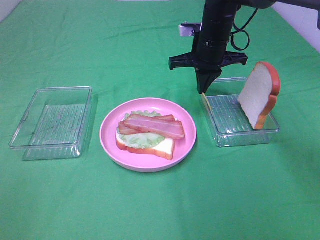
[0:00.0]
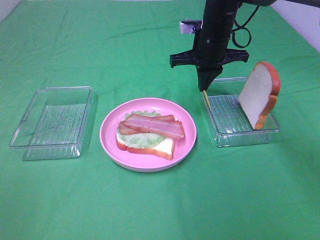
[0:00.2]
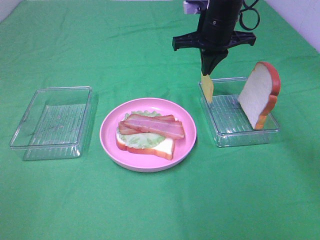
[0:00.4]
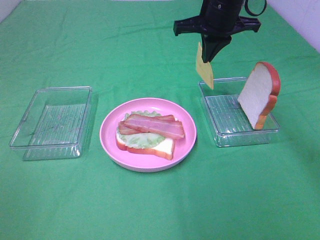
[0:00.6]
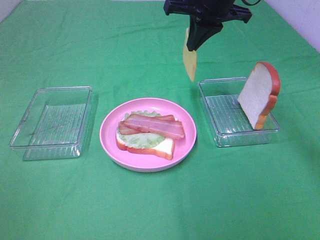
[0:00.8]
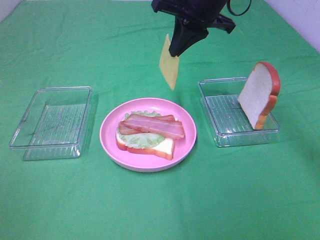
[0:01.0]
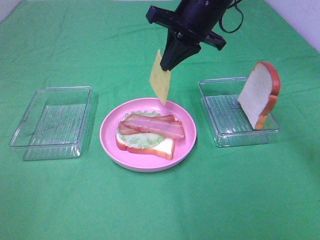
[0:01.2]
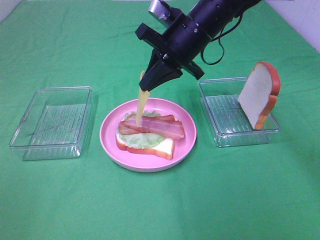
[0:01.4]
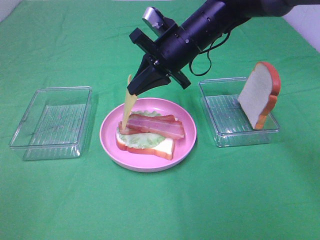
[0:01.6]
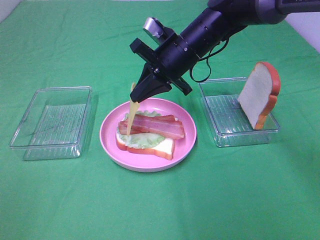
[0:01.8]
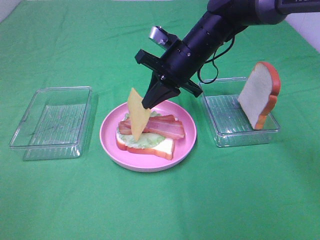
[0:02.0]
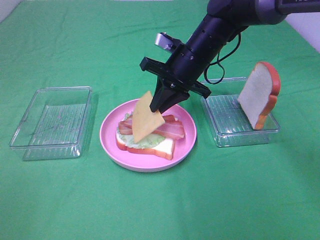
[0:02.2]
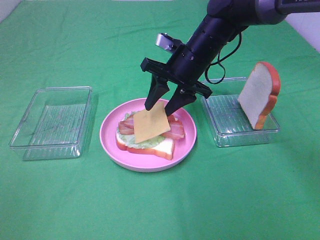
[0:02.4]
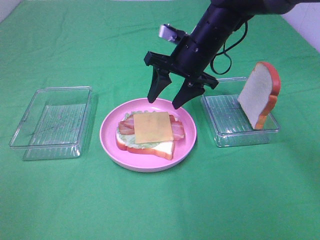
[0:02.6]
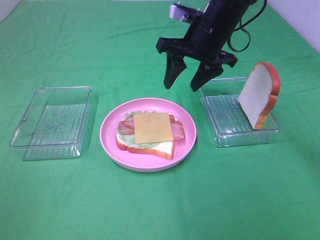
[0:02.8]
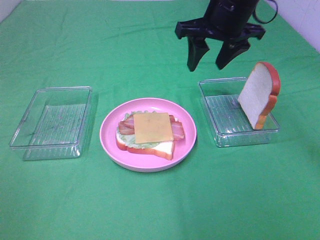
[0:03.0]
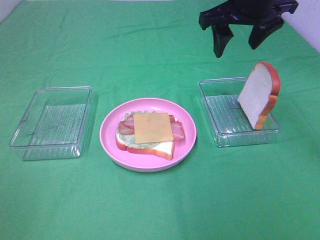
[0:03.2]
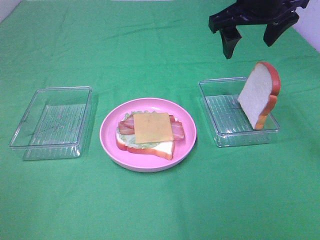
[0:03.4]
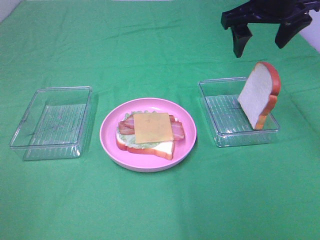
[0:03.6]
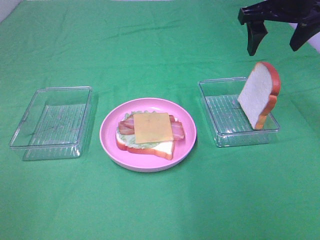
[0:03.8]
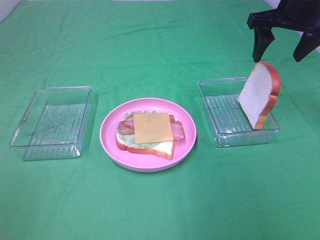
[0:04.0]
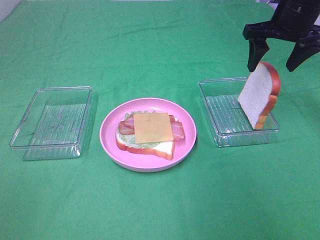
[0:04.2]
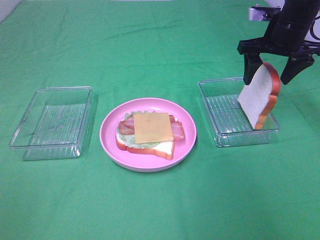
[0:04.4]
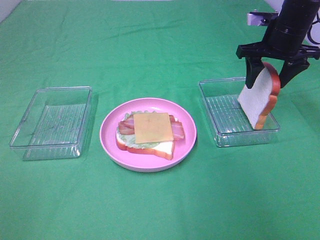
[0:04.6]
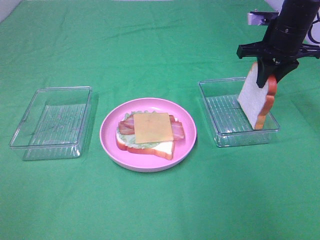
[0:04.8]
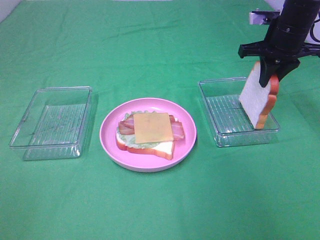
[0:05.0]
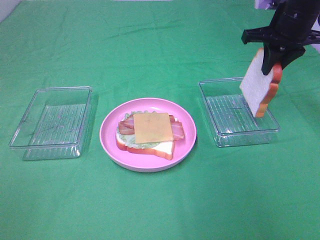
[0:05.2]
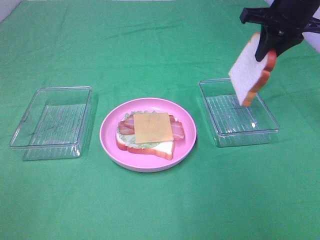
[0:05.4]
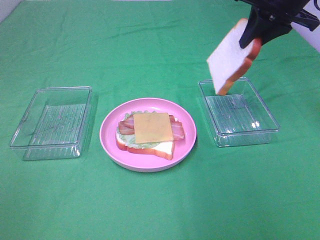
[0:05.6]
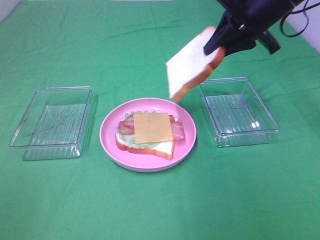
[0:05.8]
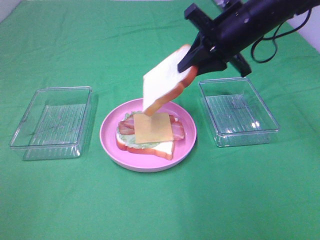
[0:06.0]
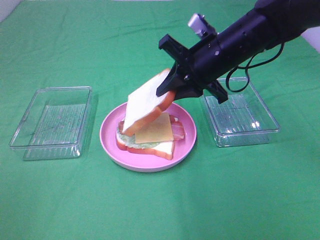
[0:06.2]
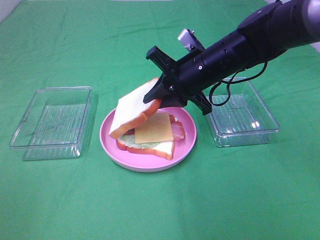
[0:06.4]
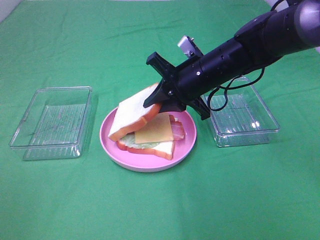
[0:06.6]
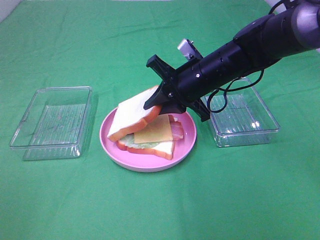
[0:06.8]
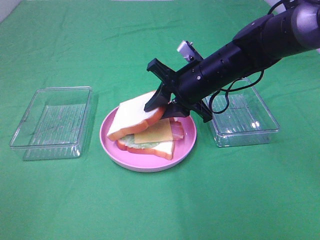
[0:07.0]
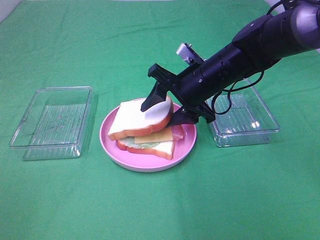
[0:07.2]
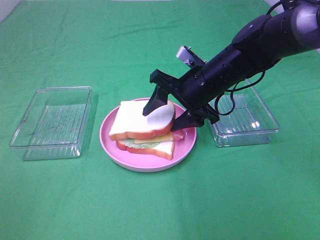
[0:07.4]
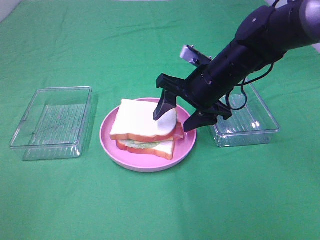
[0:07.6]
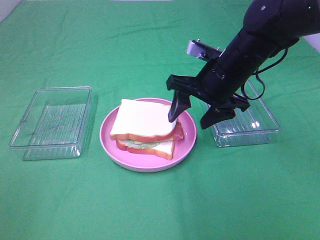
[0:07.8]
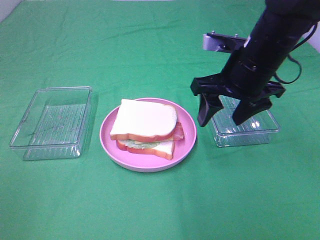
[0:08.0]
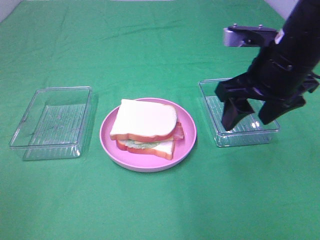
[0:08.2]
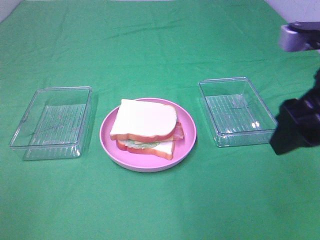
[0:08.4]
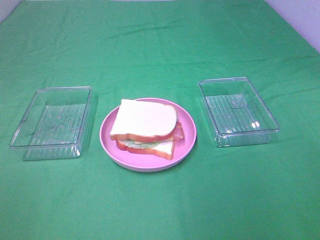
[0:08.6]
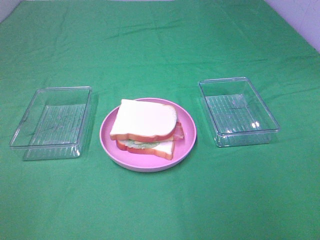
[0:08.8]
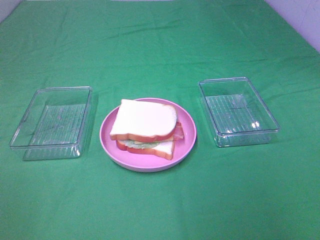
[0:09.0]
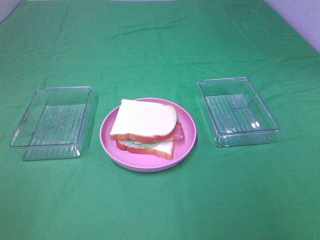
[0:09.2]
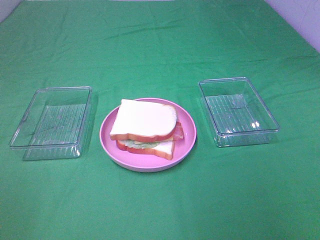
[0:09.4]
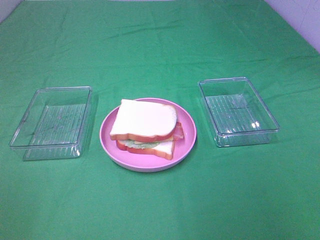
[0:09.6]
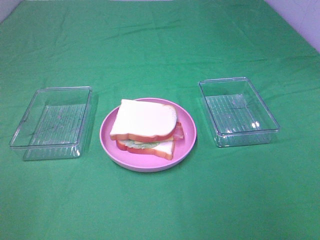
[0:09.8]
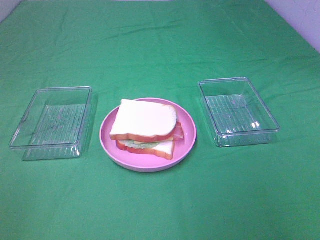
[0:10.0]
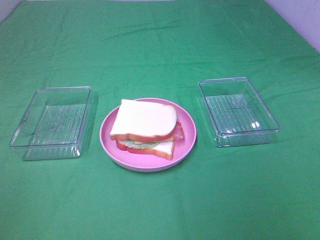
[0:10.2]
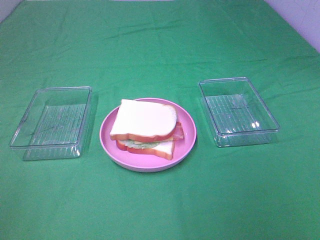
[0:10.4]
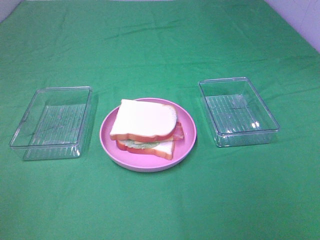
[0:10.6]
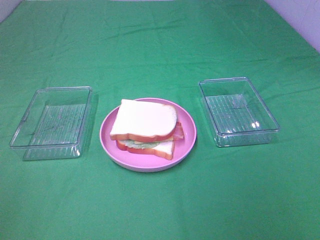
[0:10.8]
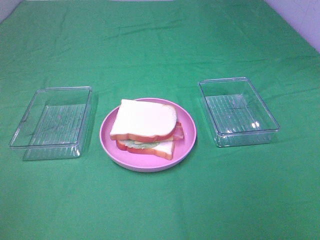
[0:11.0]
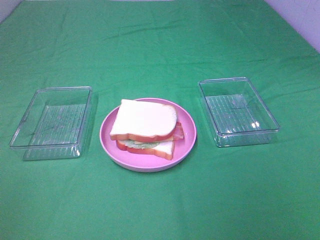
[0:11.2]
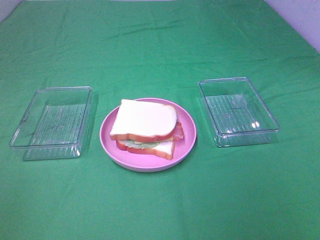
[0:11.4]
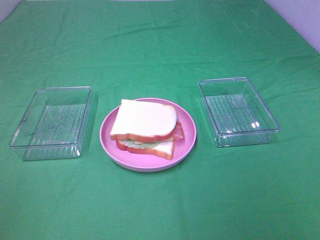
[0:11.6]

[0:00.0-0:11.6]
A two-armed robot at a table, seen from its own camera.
Task of the whole recording: Make sandwiches.
Step, 0:00.4 to 0:02.8: Right hand:place the cheese slice on top of the bacon.
Step, 0:03.0 to 0:05.0: Right hand:grab the bread slice.
Step, 0:05.2 to 0:07.6: Right hand:place the bread slice on the cheese slice.
0:00.0 to 0:01.4: The right gripper shifts about 5 cm backward, and travels upward and back again, approximately 10 cm each way.
0:01.4 to 0:02.8: The right gripper opens its fingers.
0:02.8 to 0:04.4: The right gripper is displaced to the right by some 15 cm.
0:04.4 to 0:05.8: The right gripper shifts some 5 cm to the left, and closes up.
0:05.8 to 0:07.2: The right gripper moves downward and to the left, about 15 cm, and opens.
0:07.2 to 0:08.8: The right gripper shifts approximately 35 cm backward, to the right and upward.

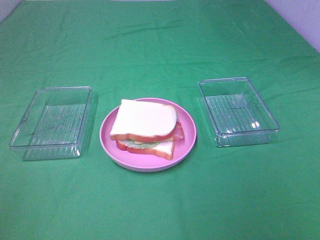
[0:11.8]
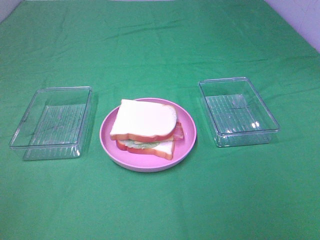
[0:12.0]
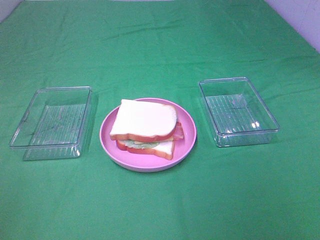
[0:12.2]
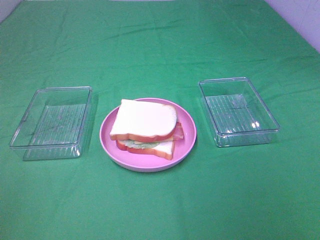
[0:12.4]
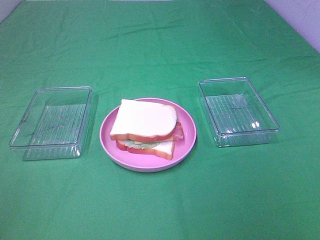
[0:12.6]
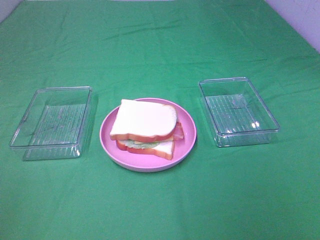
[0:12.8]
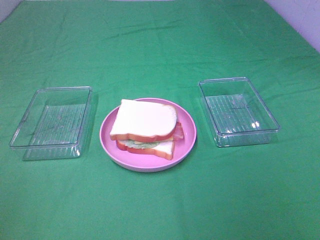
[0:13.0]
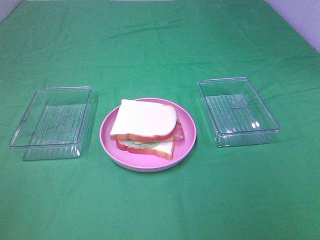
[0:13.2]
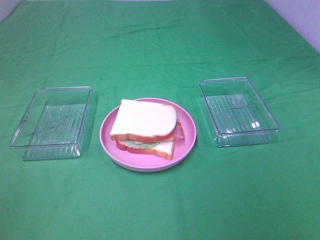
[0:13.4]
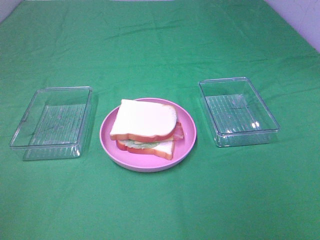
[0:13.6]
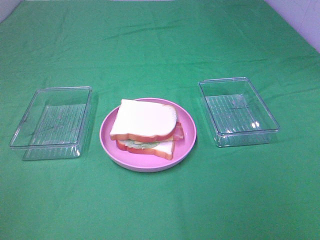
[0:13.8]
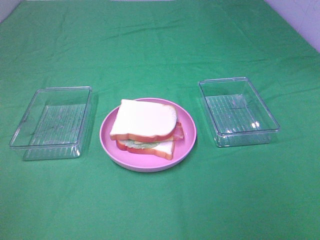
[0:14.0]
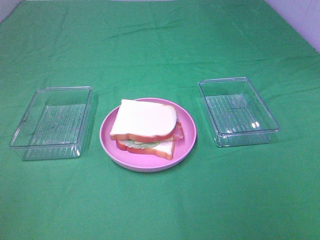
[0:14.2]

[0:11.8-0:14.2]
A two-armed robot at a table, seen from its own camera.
Task of the whole recording: Make sandwiches.
0:11.8 to 0:14.2: The two grippers keep their place.

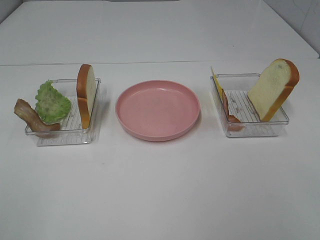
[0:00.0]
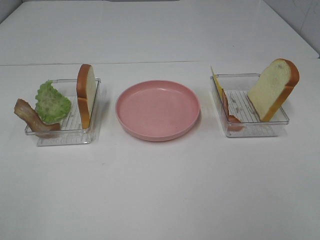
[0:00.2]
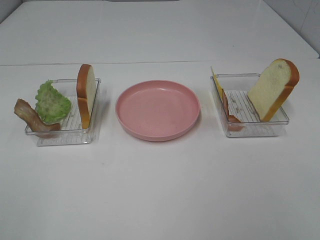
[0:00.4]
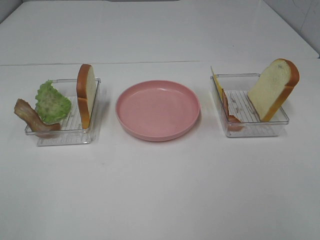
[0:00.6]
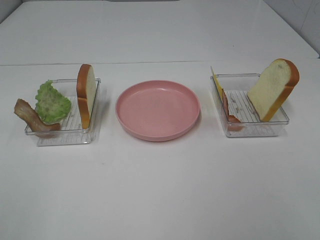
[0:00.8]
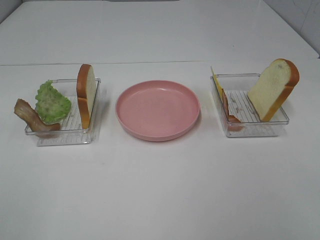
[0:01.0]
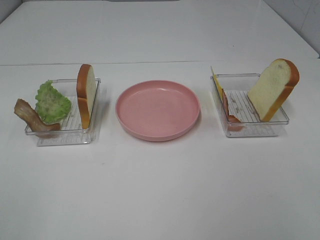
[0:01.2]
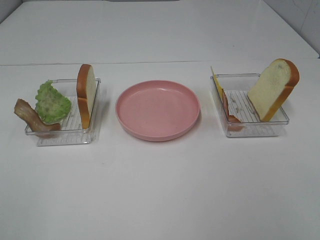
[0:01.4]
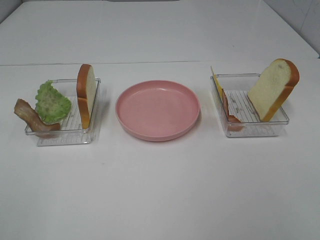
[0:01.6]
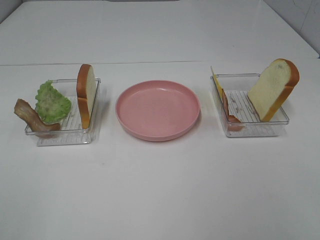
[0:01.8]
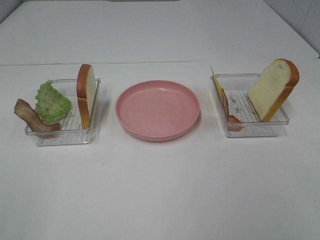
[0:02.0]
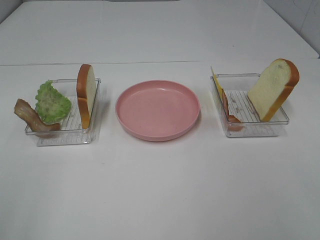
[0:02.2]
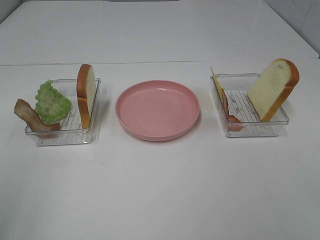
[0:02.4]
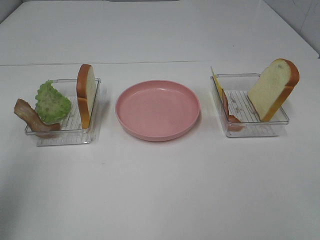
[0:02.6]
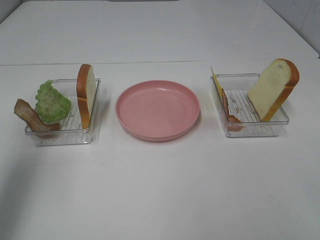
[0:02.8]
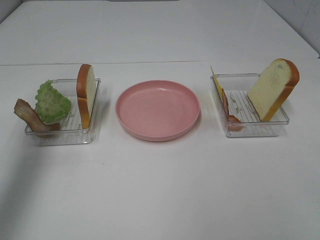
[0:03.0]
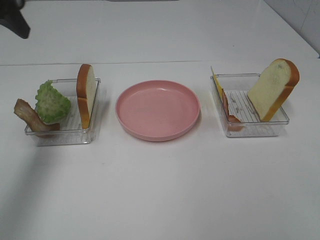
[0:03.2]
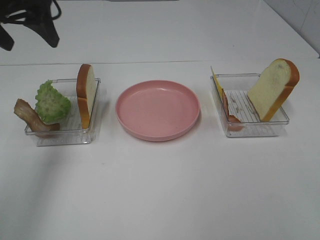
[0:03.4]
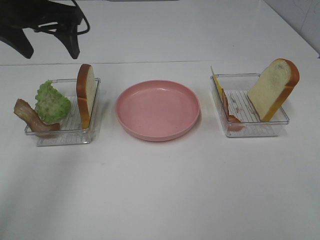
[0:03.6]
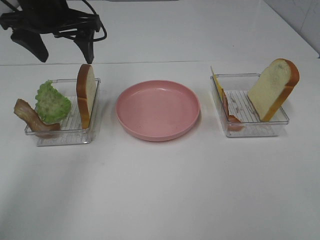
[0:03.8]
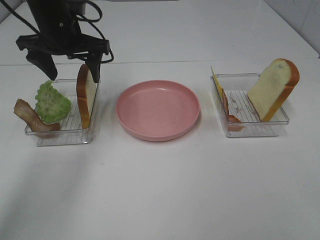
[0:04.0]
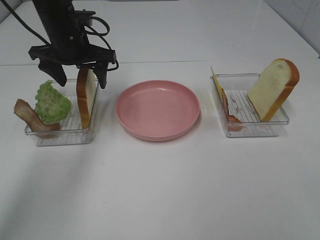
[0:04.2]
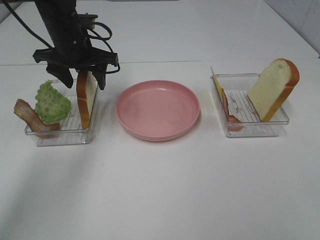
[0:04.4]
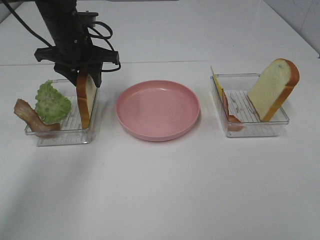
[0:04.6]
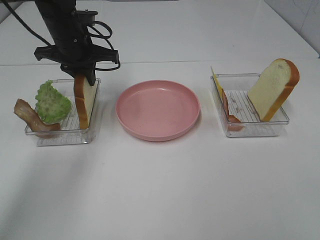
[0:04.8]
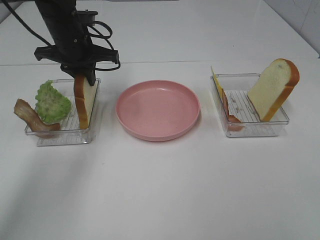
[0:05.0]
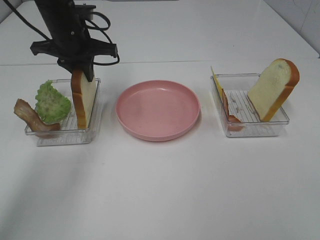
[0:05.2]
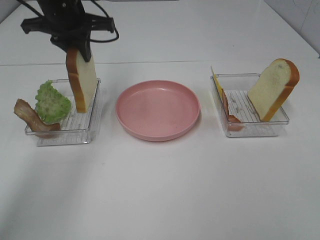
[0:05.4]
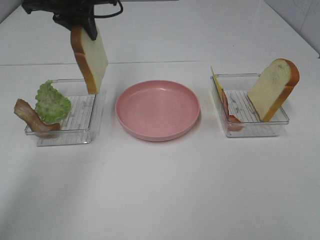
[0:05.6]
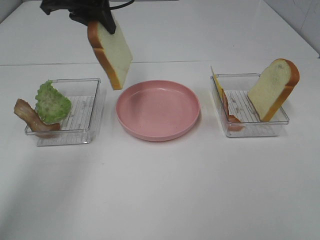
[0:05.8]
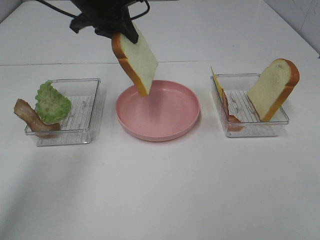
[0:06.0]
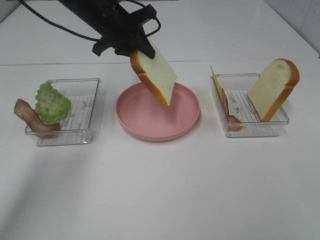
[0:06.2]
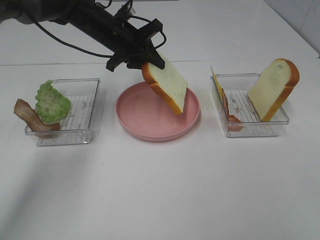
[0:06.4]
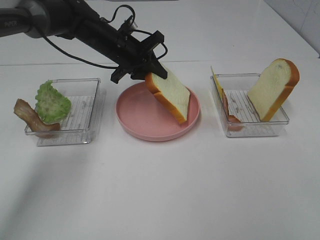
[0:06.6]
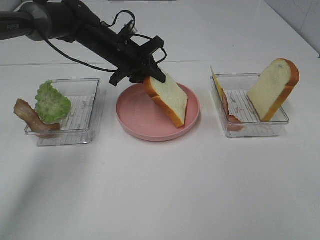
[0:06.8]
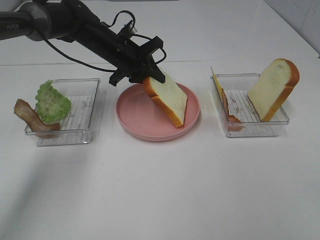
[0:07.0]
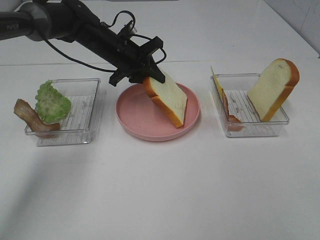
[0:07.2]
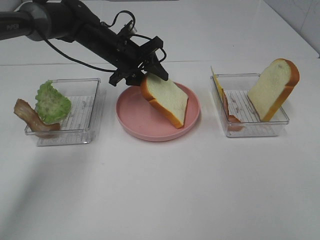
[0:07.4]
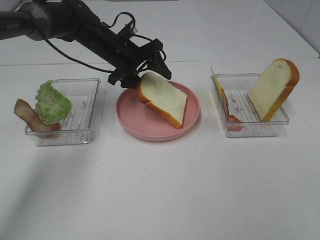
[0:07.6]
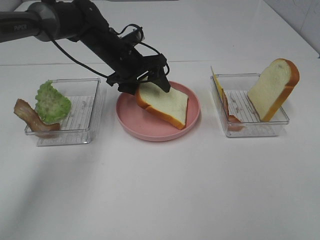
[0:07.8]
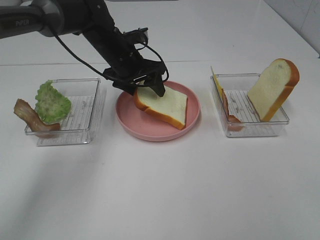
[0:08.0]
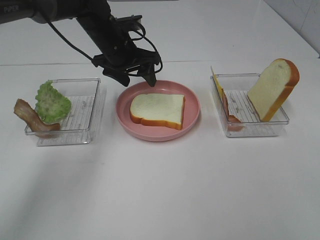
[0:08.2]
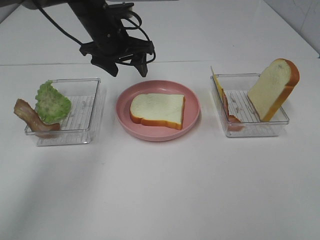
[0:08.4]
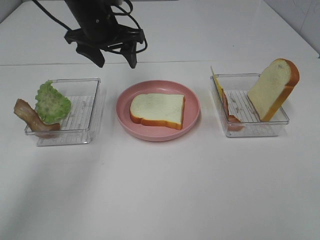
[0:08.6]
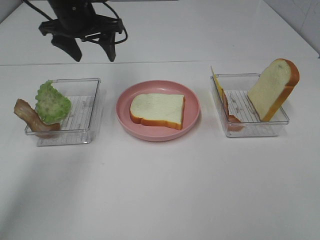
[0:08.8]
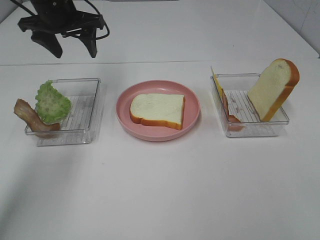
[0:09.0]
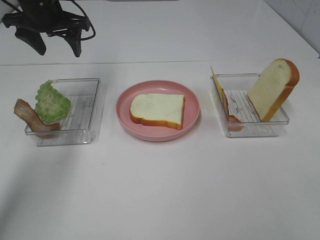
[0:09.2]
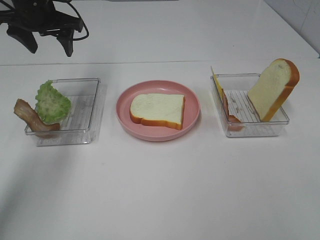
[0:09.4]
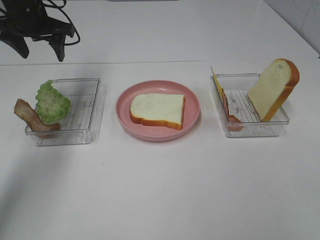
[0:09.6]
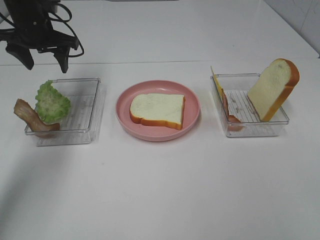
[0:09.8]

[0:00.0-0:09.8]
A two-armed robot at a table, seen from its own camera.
Task of the whole recording: Make sandwiches.
Step, 0:00.0 to 0:04.8: Left hand:grab the bread slice.
Step, 0:05.0 to 0:08.2: Left hand:place the bread slice on the plate.
0:00.0 to 0:01.4: Neither gripper changes place.
0:01.4 to 0:02.8: The left gripper shifts roughly 20 cm forward.
0:02.8 to 0:04.2: The left gripper heads forward, downward and to the right, covering roughly 30 cm.
0:04.2 to 0:05.6: The left gripper is displaced upward by approximately 10 cm, and closes up.
0:05.6 to 0:07.0: The left gripper moves downward, some 15 cm.
0:07.0 to 0:08.4: The left gripper moves upward, about 5 cm, and opens up.
0:08.4 to 0:09.8: The left gripper shifts roughly 15 cm to the left.
